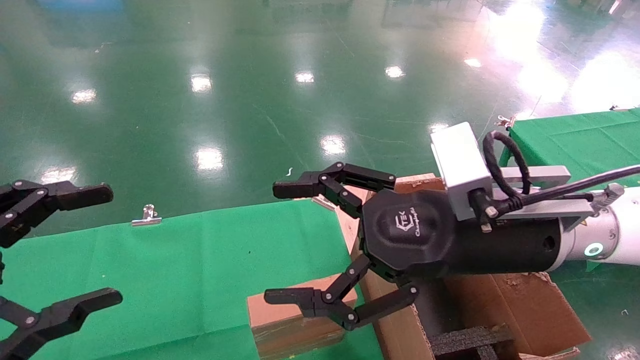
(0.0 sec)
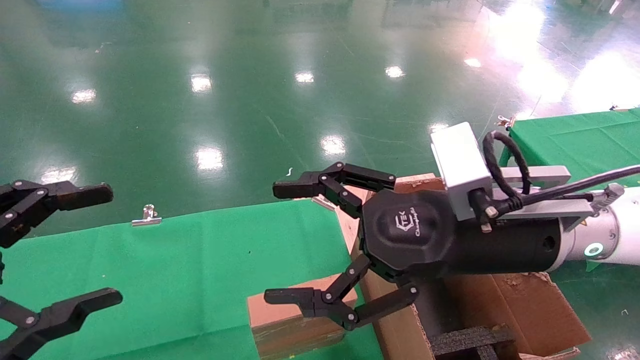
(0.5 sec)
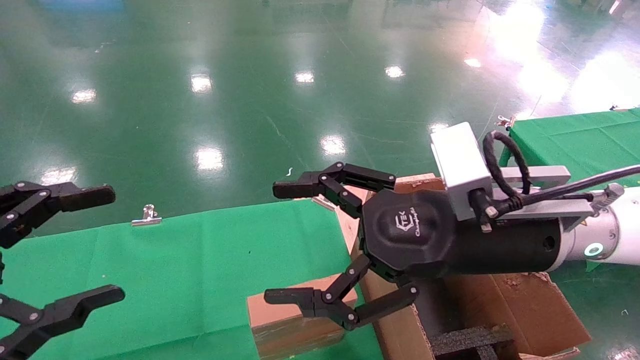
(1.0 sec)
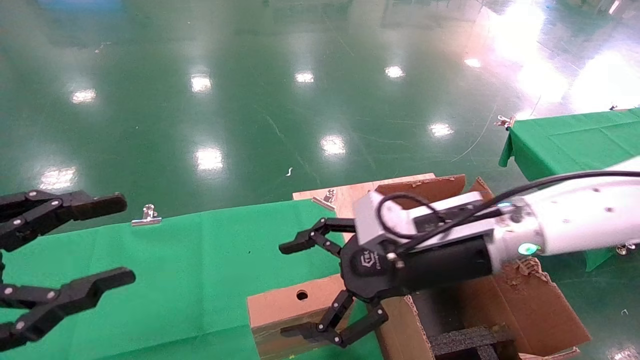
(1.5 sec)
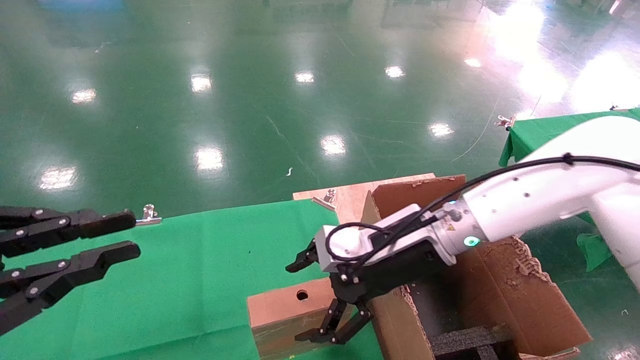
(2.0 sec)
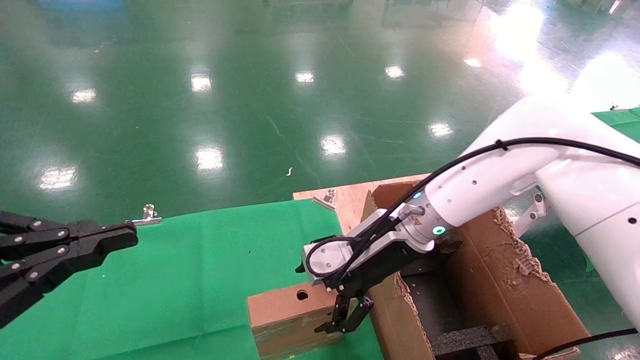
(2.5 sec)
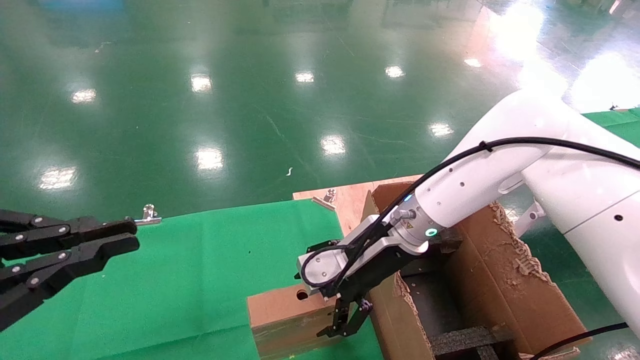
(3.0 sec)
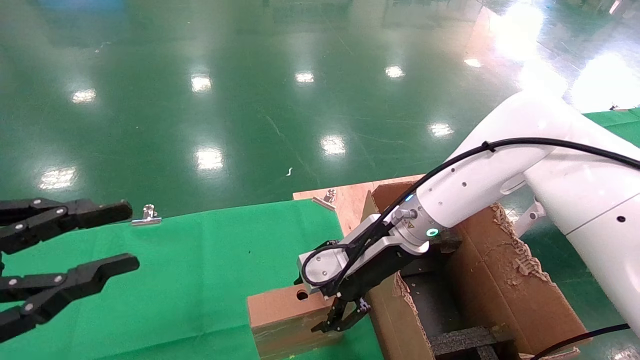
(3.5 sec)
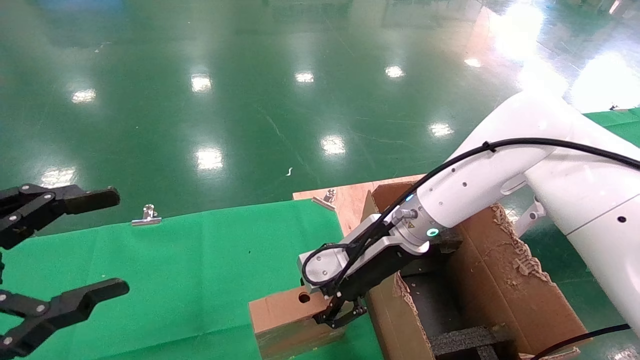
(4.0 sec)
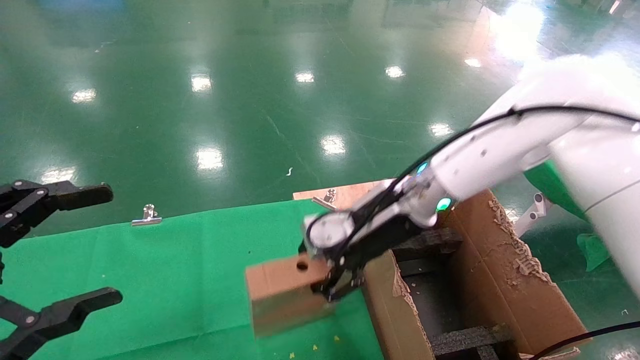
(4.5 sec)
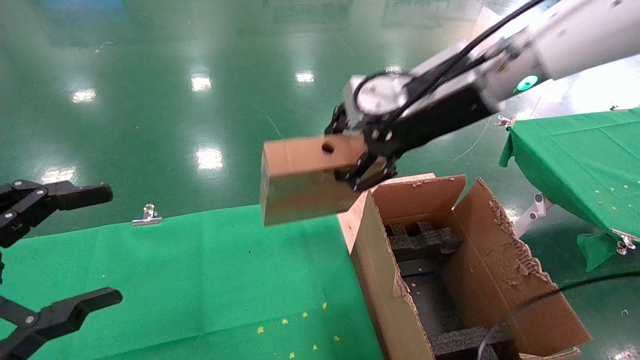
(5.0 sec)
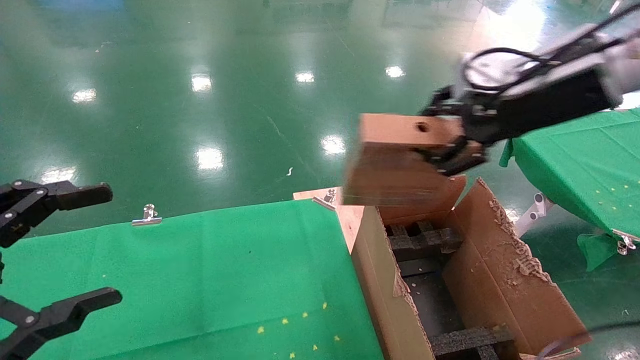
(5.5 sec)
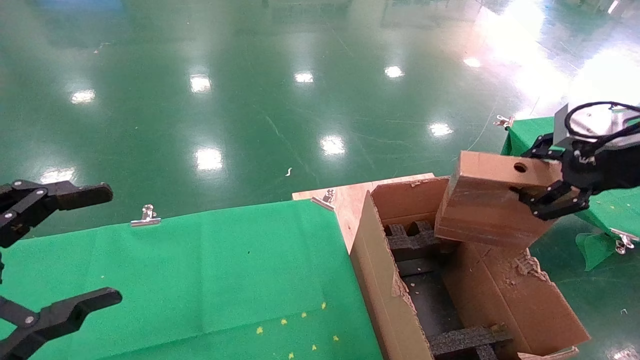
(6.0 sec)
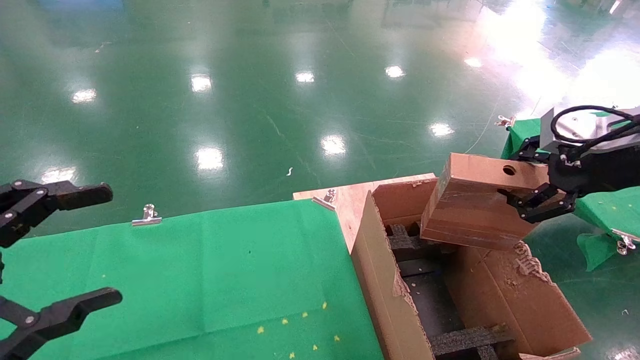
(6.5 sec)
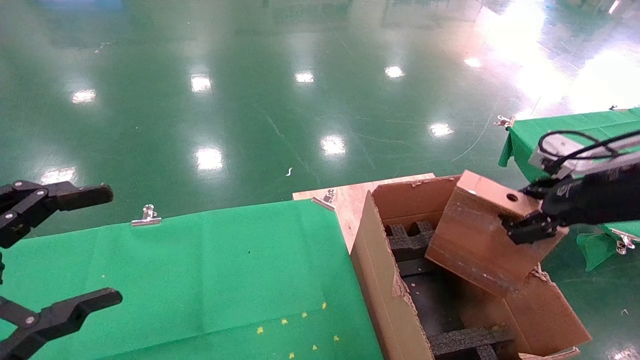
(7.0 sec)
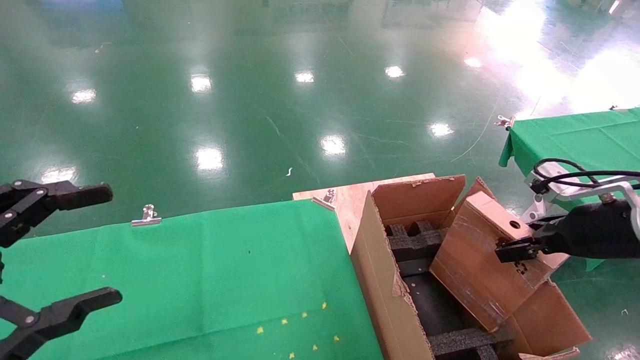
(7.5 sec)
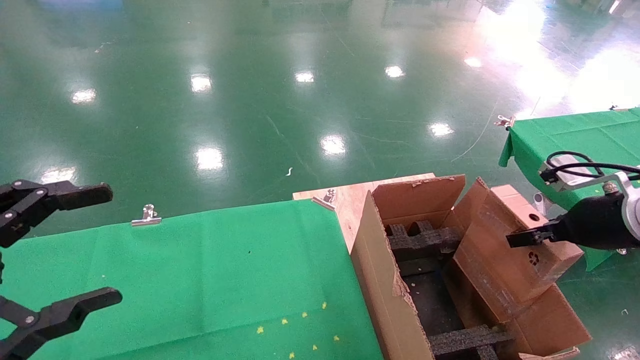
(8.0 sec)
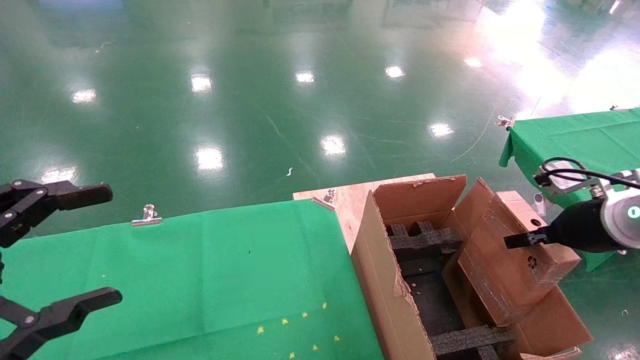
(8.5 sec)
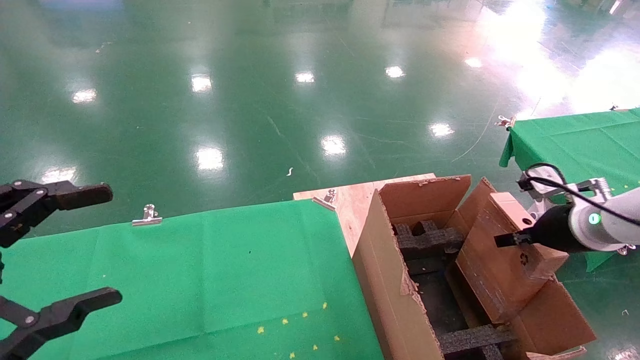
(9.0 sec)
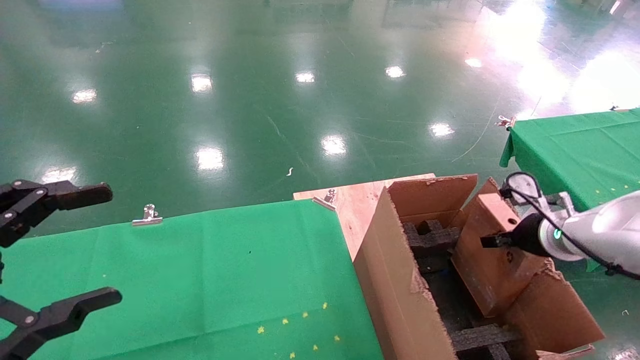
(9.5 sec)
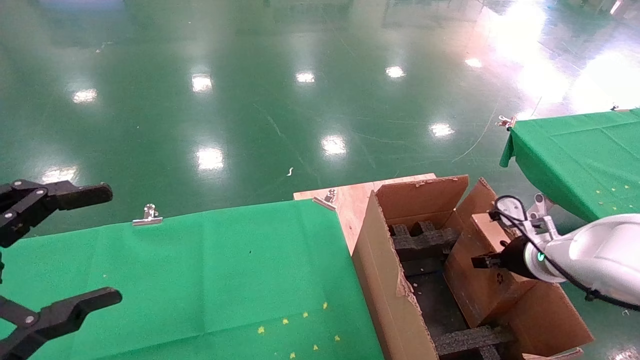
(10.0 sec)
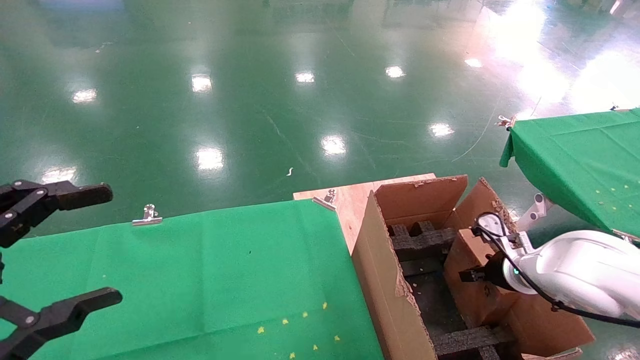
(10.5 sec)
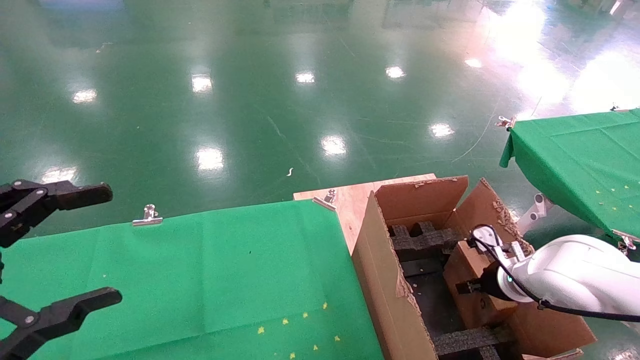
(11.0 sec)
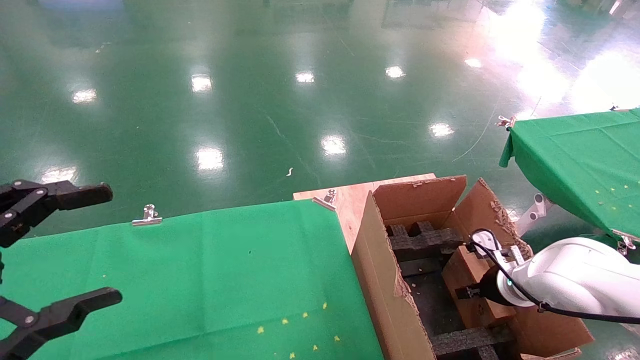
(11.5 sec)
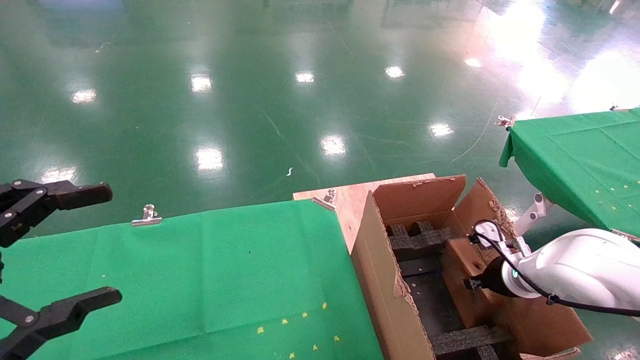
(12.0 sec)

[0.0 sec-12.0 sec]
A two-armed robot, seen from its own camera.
Task of the whole recording: using a robotic arm to pick up a cardboard box and palace it the carton.
Step, 1.5 sec to 3.5 sec: Pick up the mouse and the power cord paper box.
0.0 sec to 2.0 sec: The left gripper closes its fingers; the right gripper shifts roughly 10 cm forward and downward.
2.0 sec to 4.0 sec: The right gripper closes. Meanwhile the left gripper opens its fingers.
4.0 sec to 6.0 sec: The right gripper moves to the right, upward and backward, some 35 cm.
6.0 sec to 8.0 sec: The right gripper is displaced downward by some 10 cm.
8.0 sec to 10.0 sec: The right gripper is displaced downward and forward by some 15 cm.
10.0 sec to 12.0 sec: The right gripper changes place by approximately 5 cm.

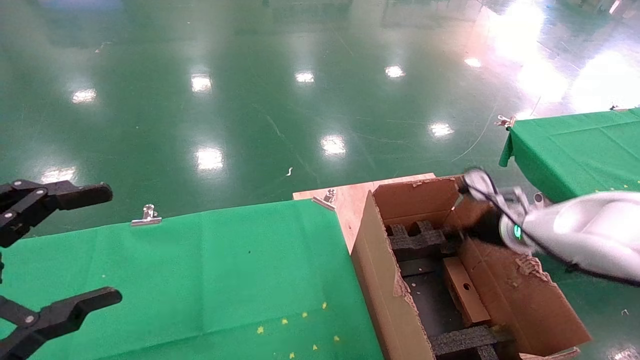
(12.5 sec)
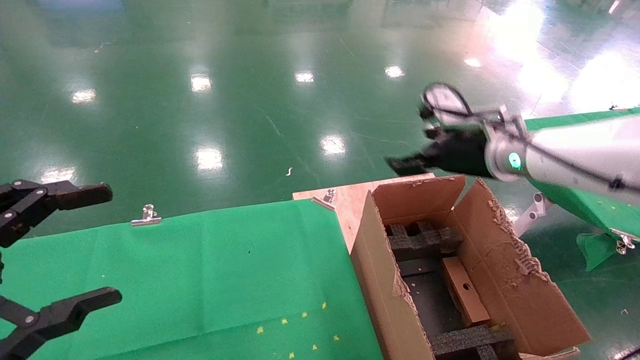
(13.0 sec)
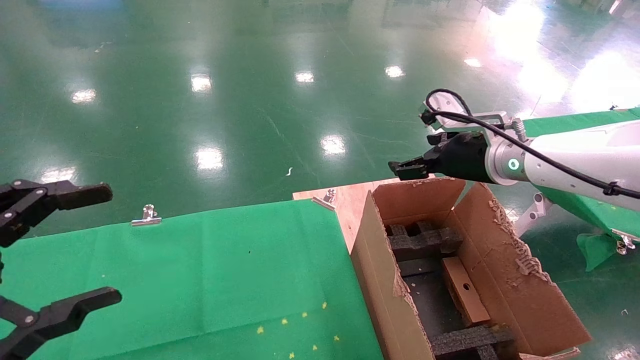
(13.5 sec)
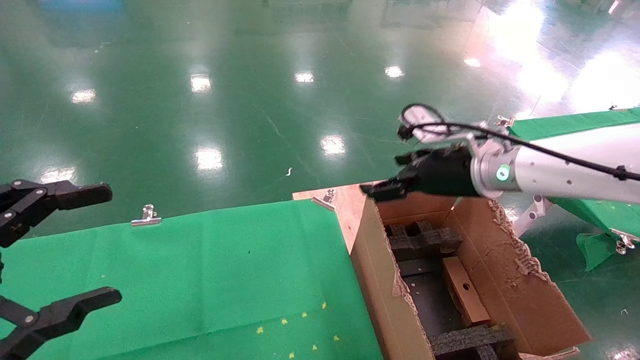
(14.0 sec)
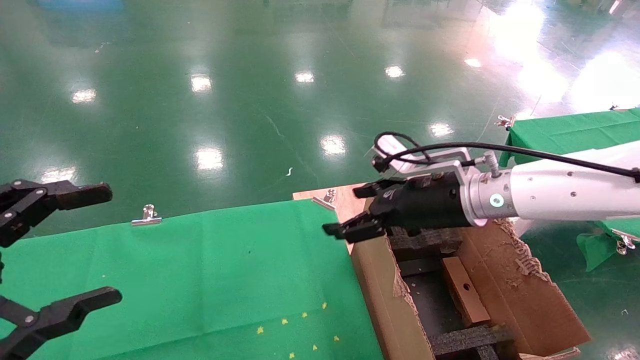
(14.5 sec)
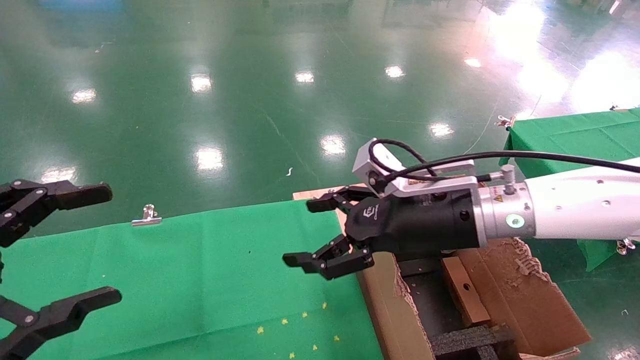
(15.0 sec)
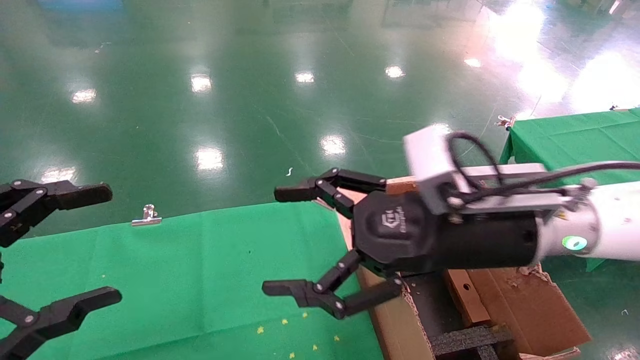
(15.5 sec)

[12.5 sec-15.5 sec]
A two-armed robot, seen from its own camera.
Task of the whole recording: using a robotic arm to pick up a cardboard box and palace it the carton.
12.5 sec to 14.0 sec: The right gripper moves upward and to the left, about 15 cm.
14.0 sec to 15.5 sec: The right gripper goes approximately 15 cm backward and to the left.
